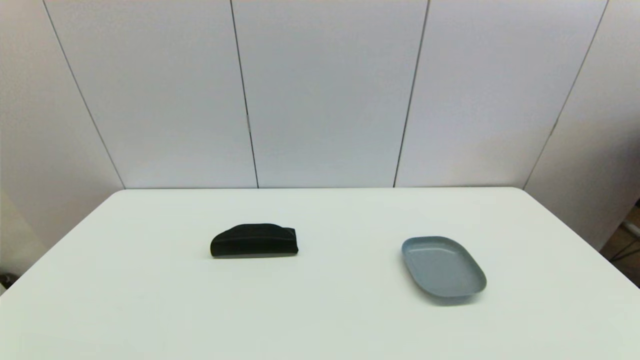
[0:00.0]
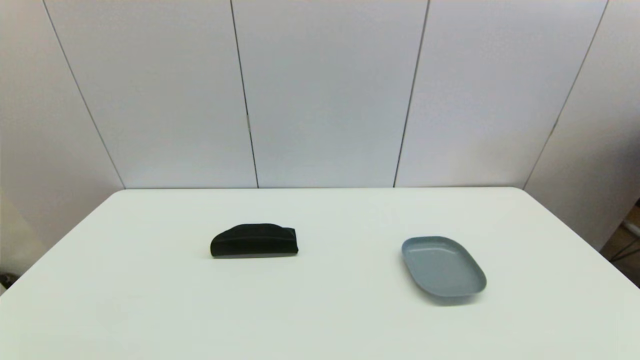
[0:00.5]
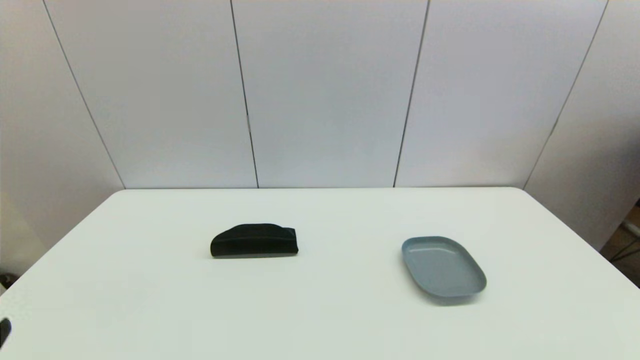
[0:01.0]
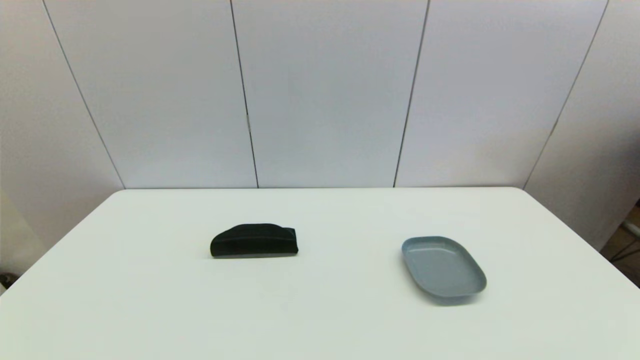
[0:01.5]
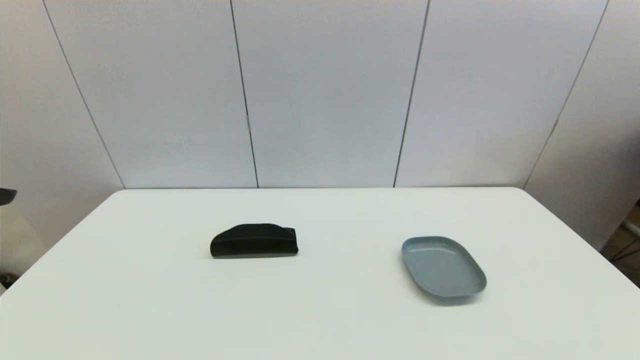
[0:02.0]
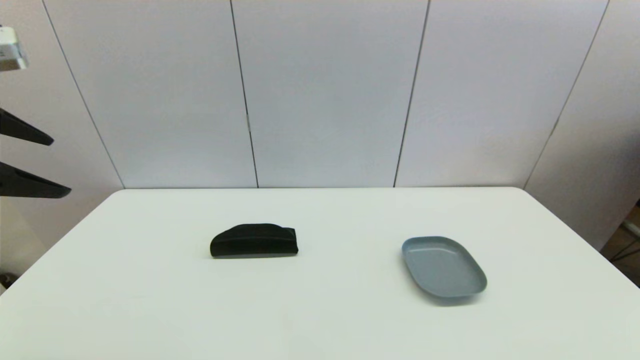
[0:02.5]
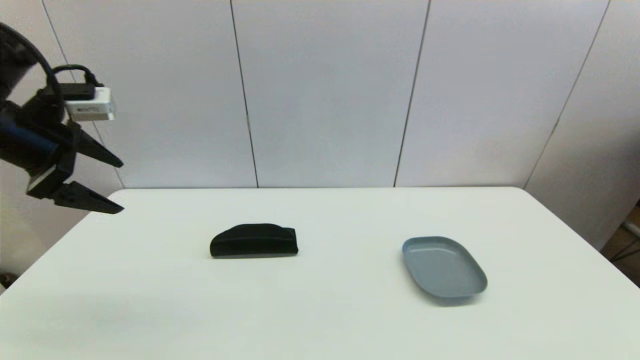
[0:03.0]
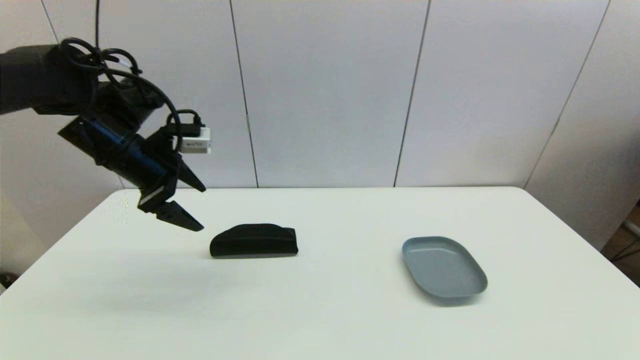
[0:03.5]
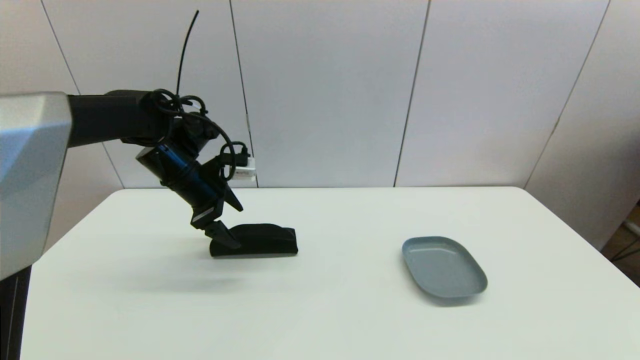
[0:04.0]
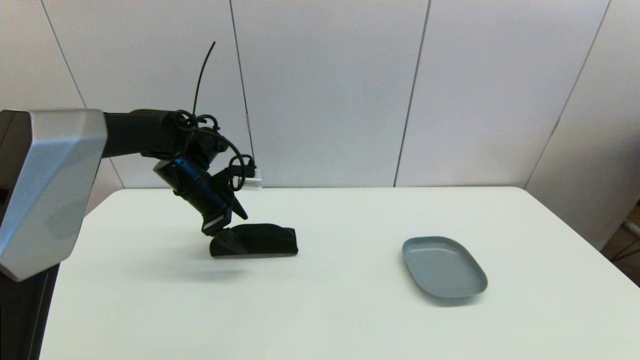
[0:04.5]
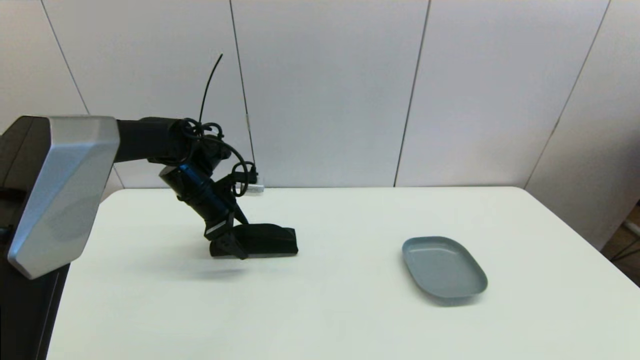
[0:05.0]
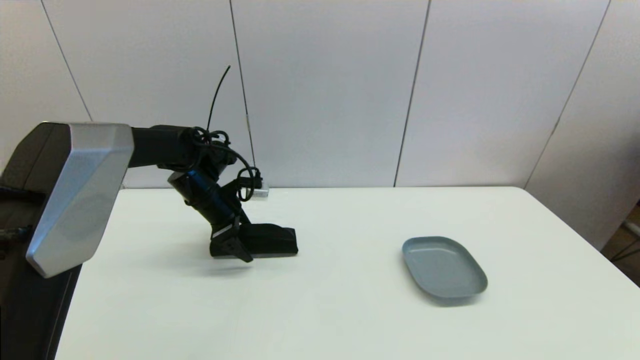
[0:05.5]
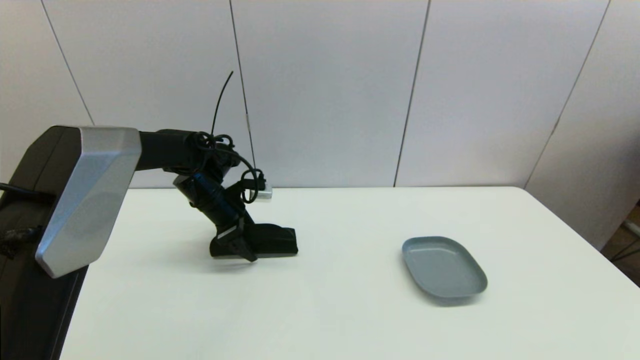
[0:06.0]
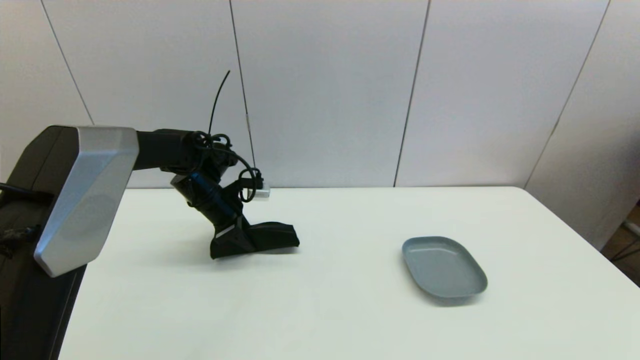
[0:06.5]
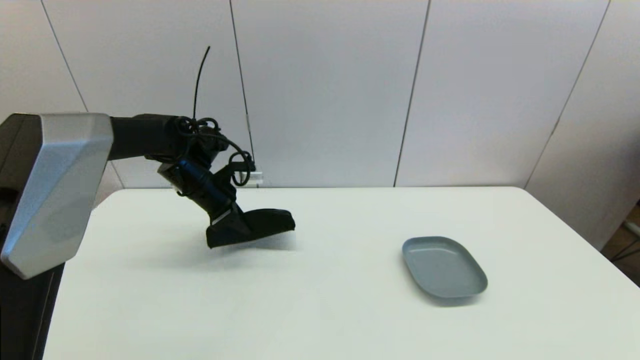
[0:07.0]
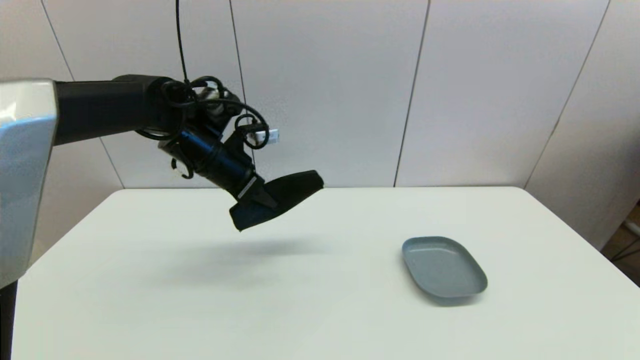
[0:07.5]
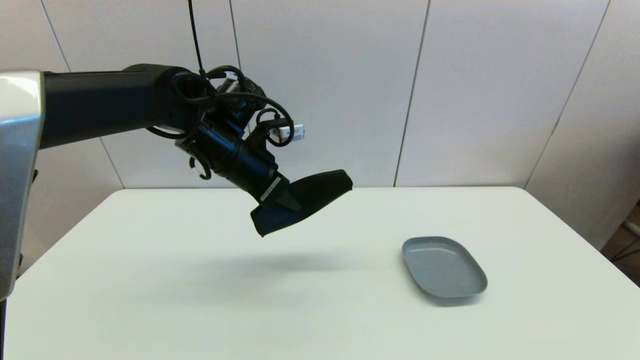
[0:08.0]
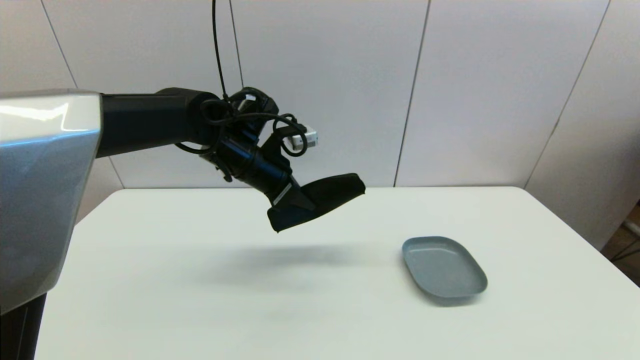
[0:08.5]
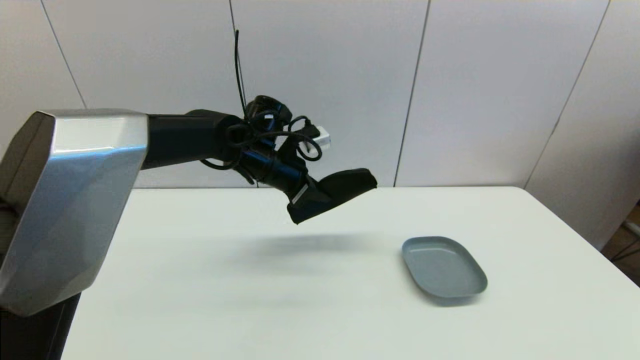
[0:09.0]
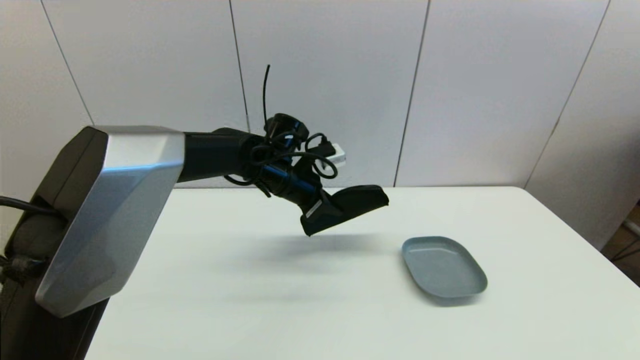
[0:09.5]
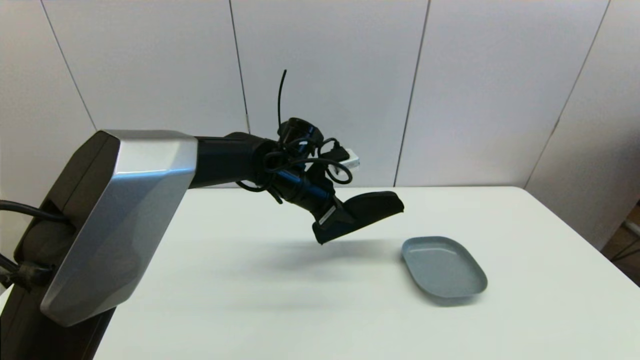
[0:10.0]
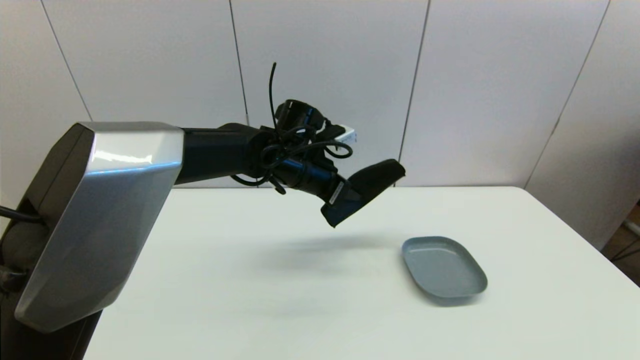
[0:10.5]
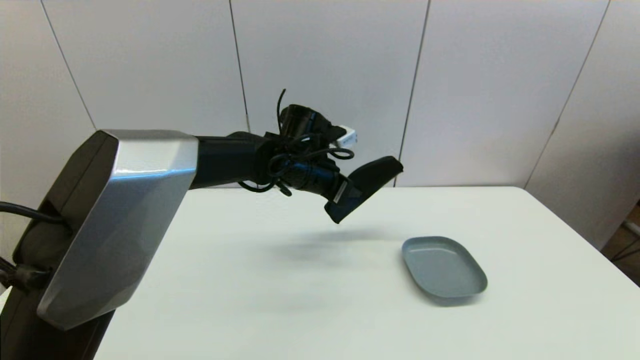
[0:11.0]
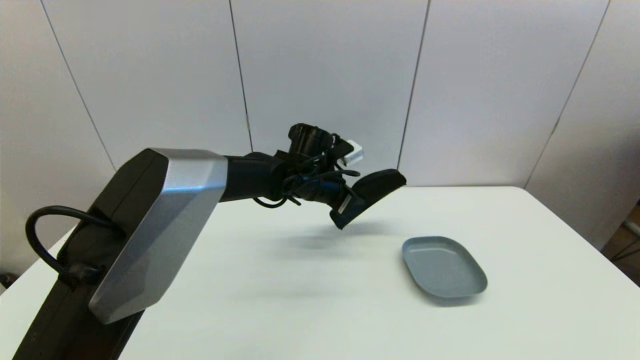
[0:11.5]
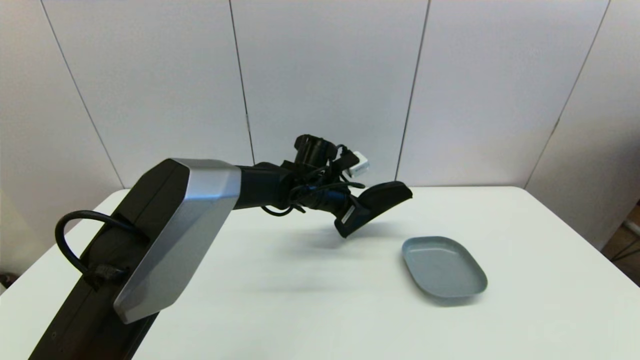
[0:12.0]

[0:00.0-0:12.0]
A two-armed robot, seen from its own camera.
Step, 0:01.0 to 0:06.0: Grasp the glasses case with left gripper.
0:02.0 to 0:04.0: The left gripper is displaced forward, downward and to the right by about 35 cm.
0:04.0 to 0:06.0: The left gripper moves downward, some 5 cm.
0:06.0 to 0:08.0: The left gripper is displaced upward, to the right and backward by approximately 15 cm, and closes.
0:08.0 to 0:10.0: The left gripper is displaced to the right and downward by approximately 10 cm.
0:10.0 to 0:12.0: The left gripper shifts by roughly 5 cm.

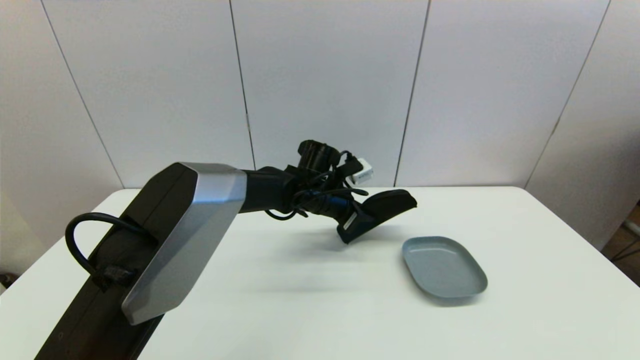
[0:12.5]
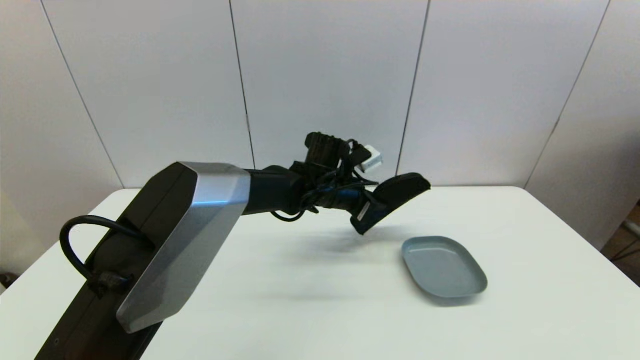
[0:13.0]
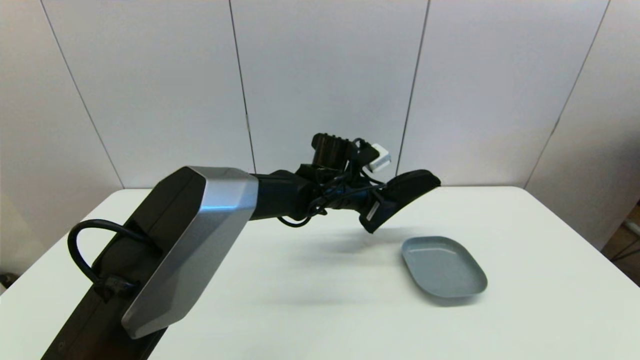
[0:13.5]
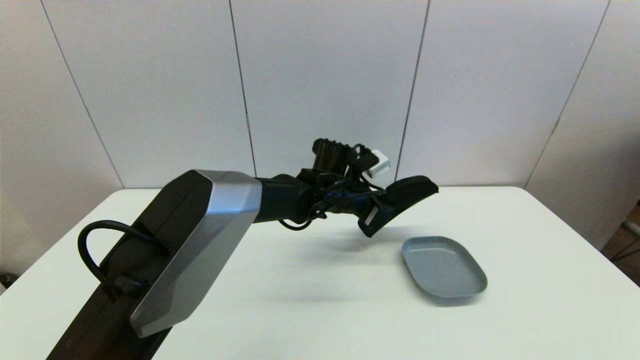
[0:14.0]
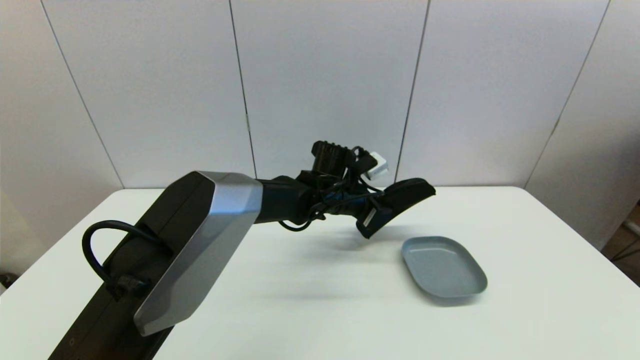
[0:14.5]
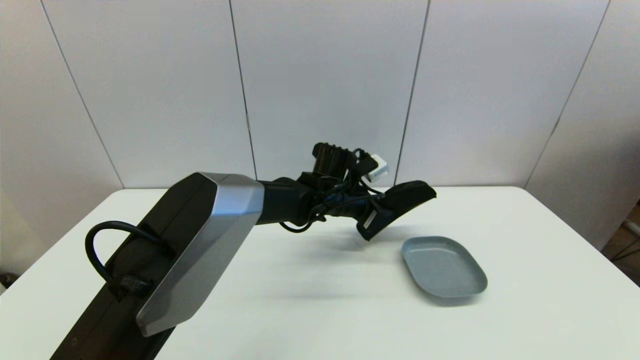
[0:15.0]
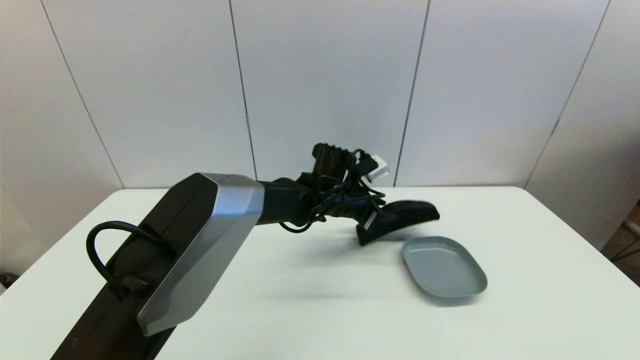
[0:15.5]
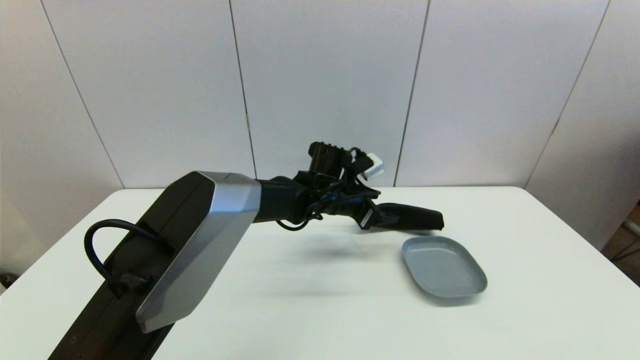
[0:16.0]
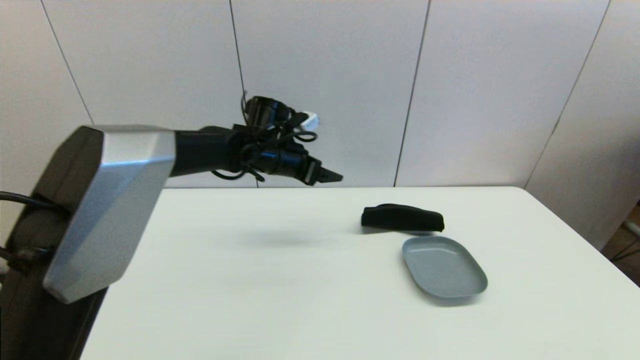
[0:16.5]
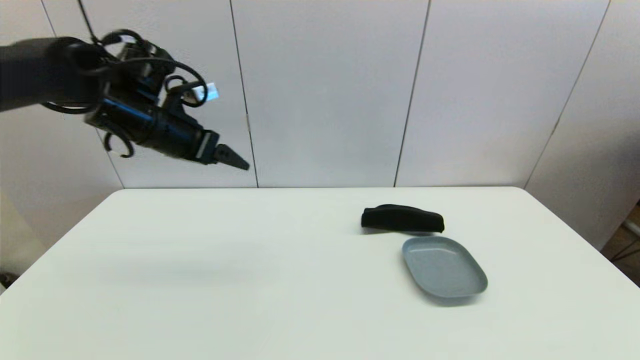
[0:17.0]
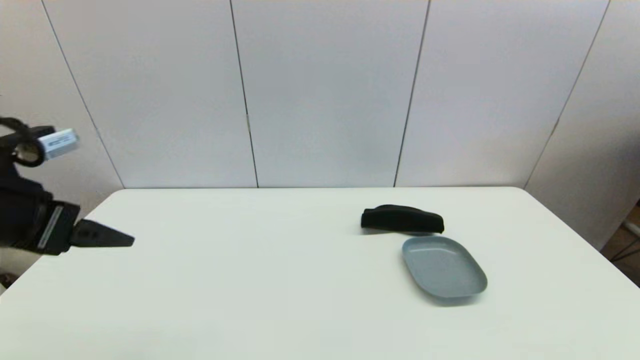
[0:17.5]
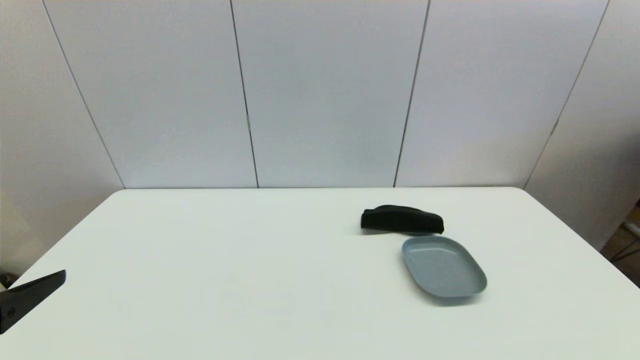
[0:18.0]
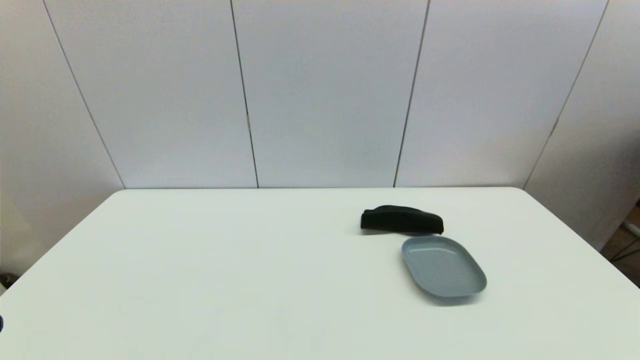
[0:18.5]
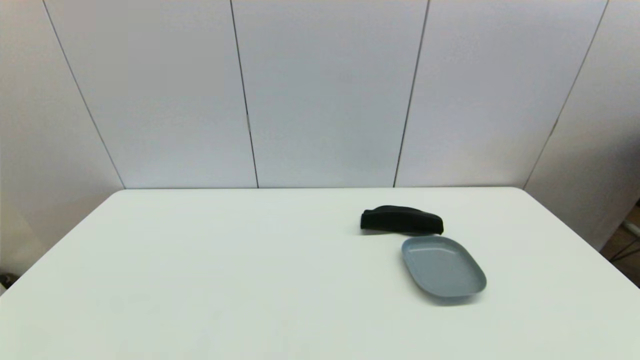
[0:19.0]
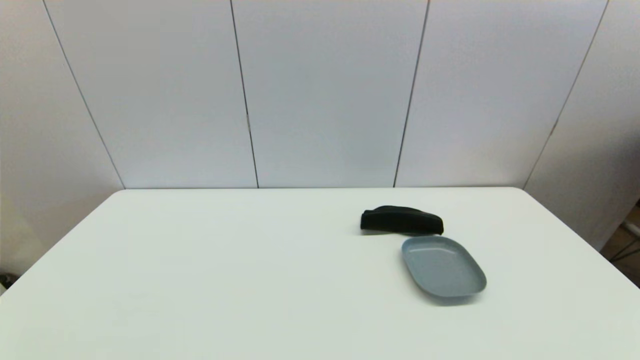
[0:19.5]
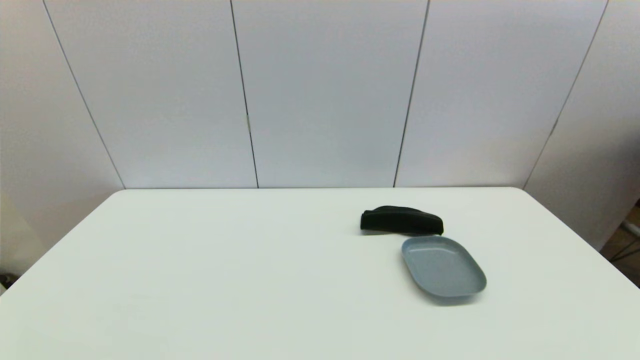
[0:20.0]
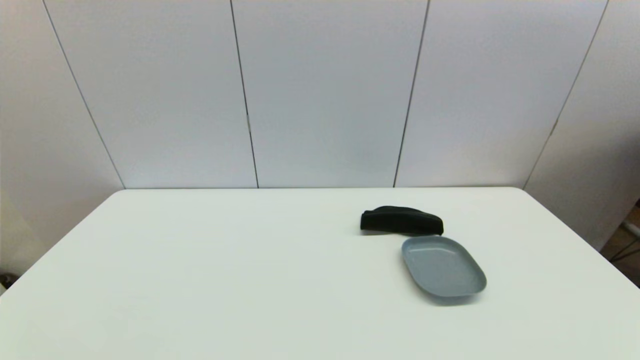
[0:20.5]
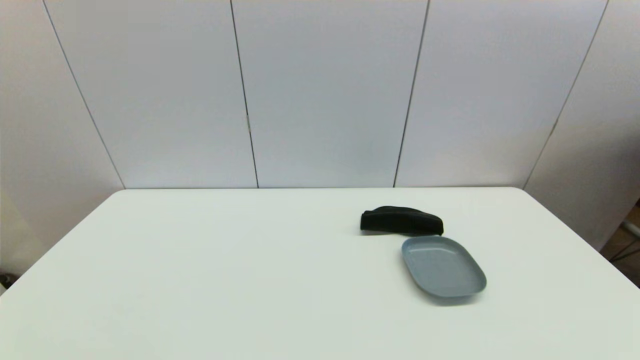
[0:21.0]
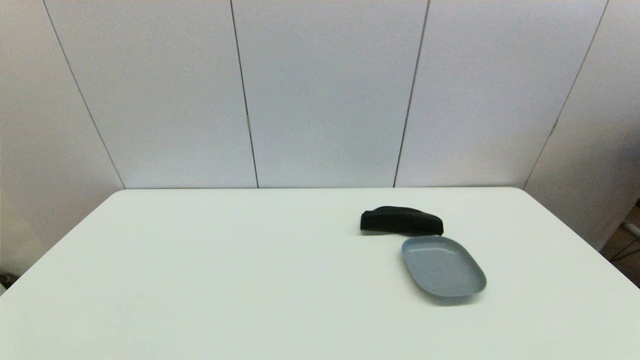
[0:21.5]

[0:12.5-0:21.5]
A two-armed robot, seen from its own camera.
Step, 0:12.5 to 0:15.5: Place the glasses case on the table with left gripper.
0:12.5 to 0:14.5: The grippers make only small movements.
0:14.5 to 0:17.0: The left gripper is displaced to the left and upward by some 30 cm, and opens up.
0:17.0 to 0:19.5: The left gripper goes roughly 40 cm backward and downward.
